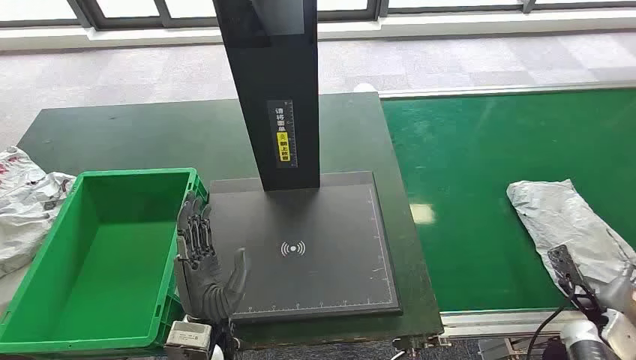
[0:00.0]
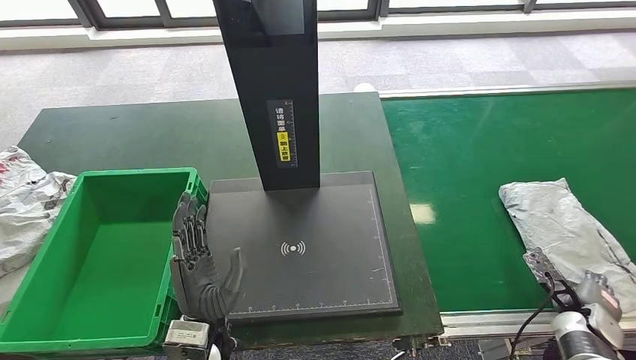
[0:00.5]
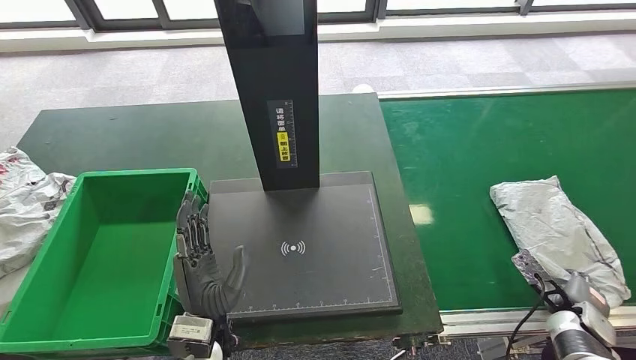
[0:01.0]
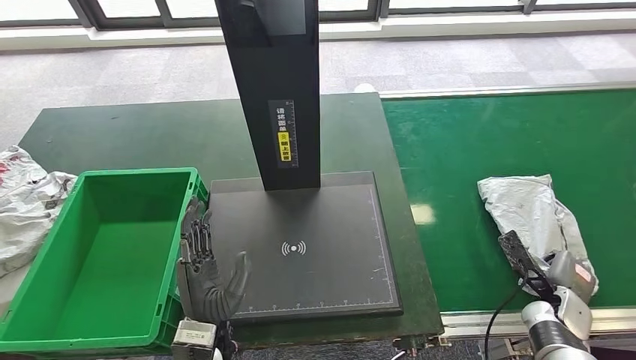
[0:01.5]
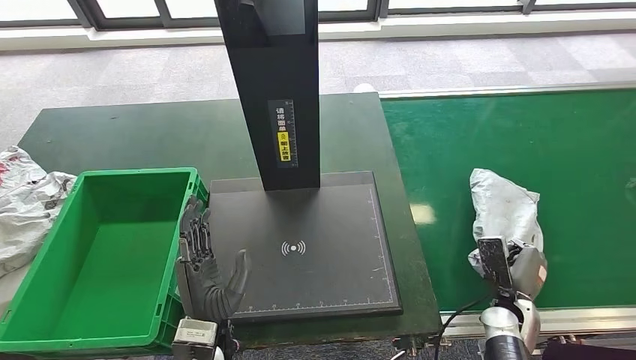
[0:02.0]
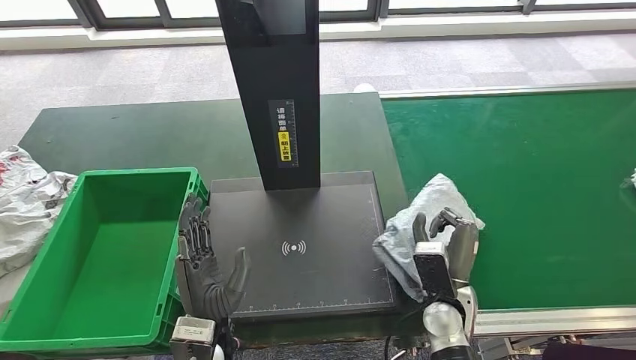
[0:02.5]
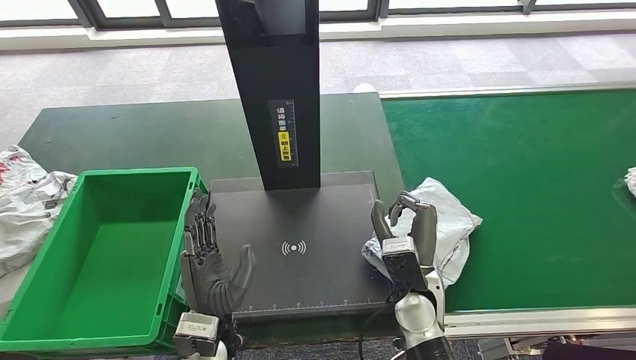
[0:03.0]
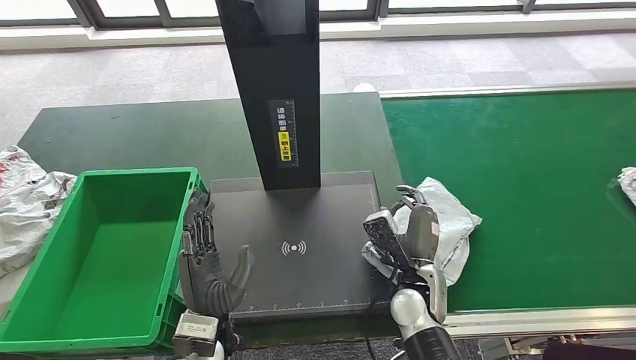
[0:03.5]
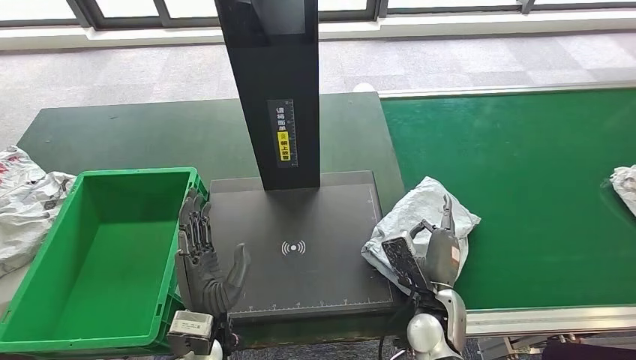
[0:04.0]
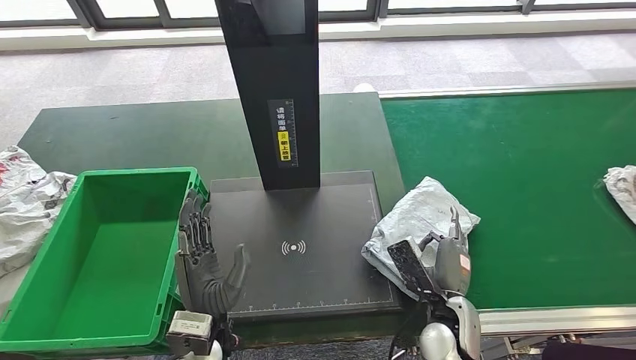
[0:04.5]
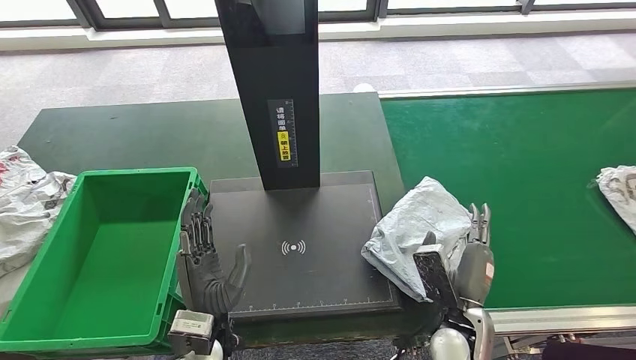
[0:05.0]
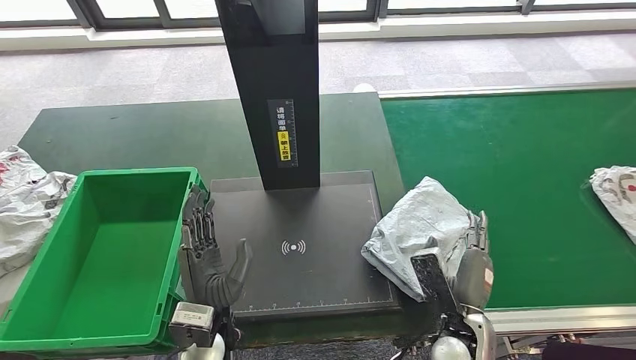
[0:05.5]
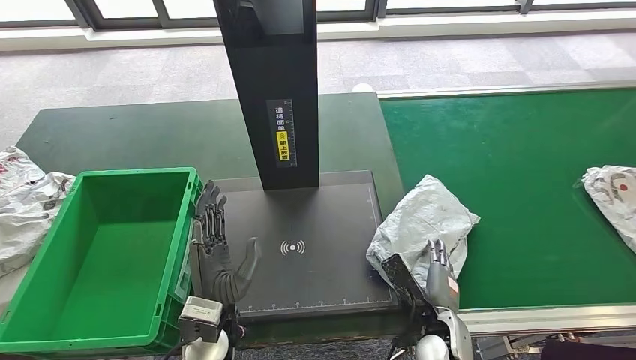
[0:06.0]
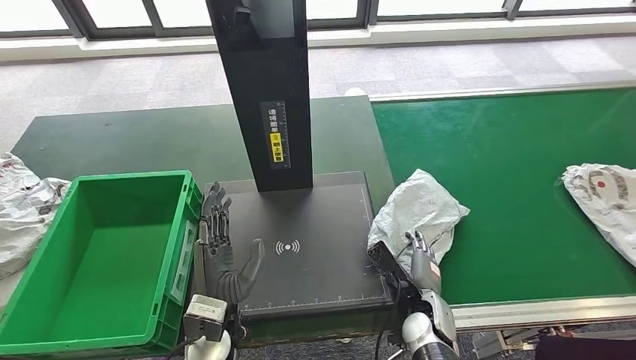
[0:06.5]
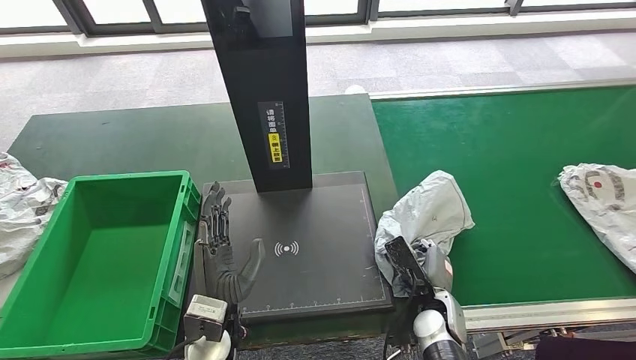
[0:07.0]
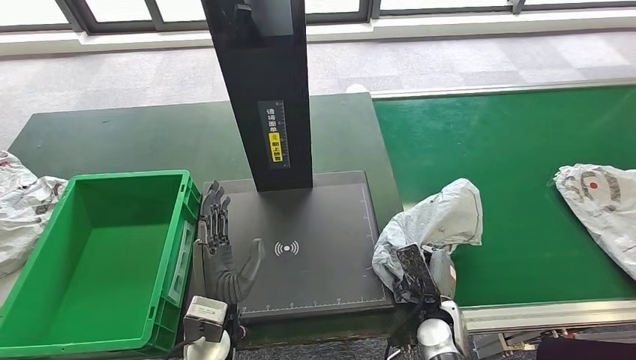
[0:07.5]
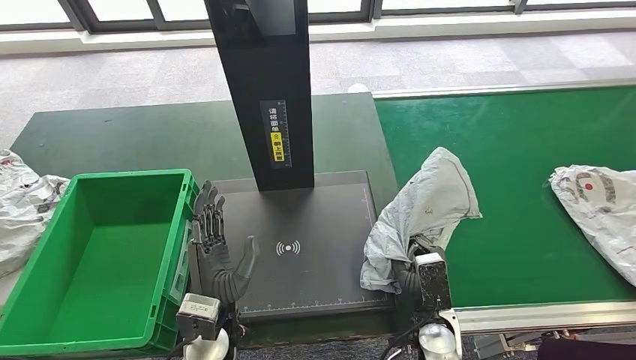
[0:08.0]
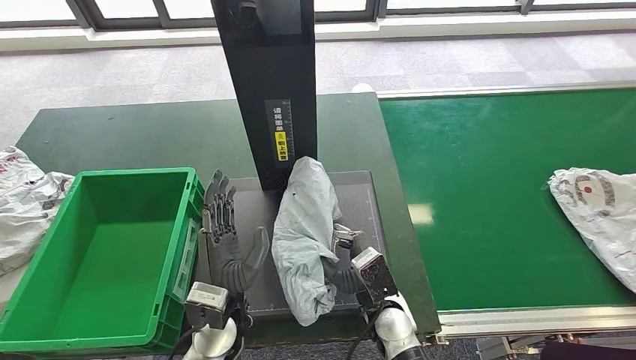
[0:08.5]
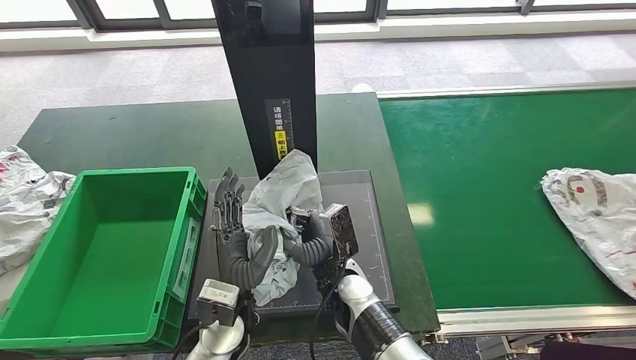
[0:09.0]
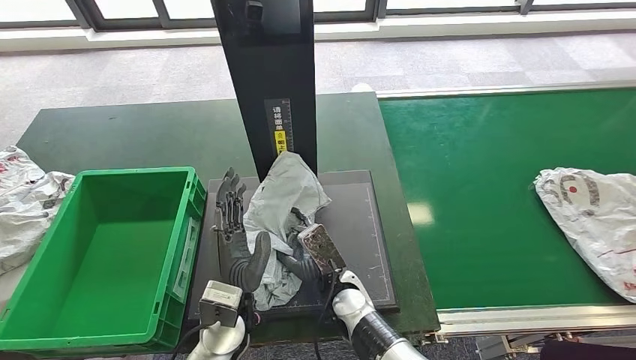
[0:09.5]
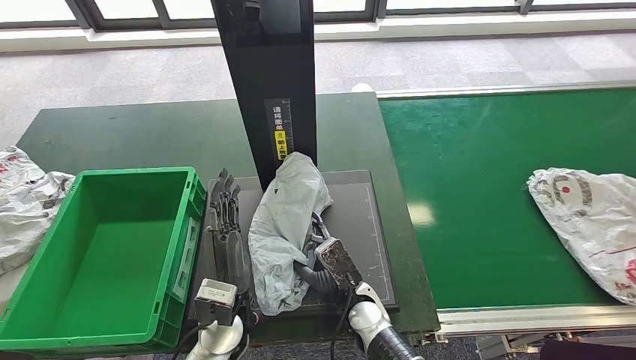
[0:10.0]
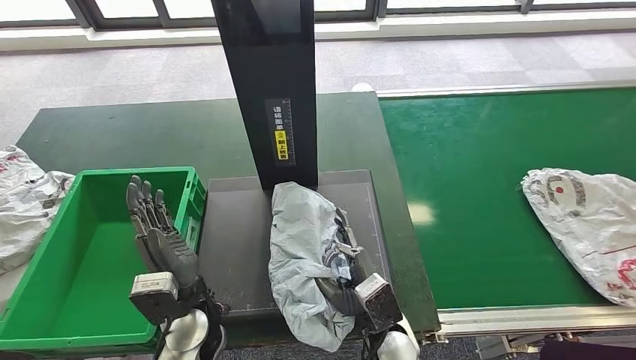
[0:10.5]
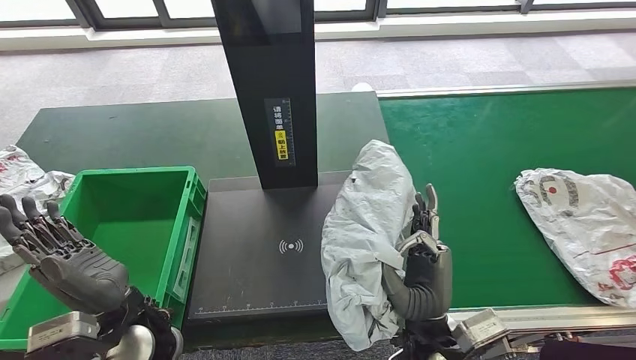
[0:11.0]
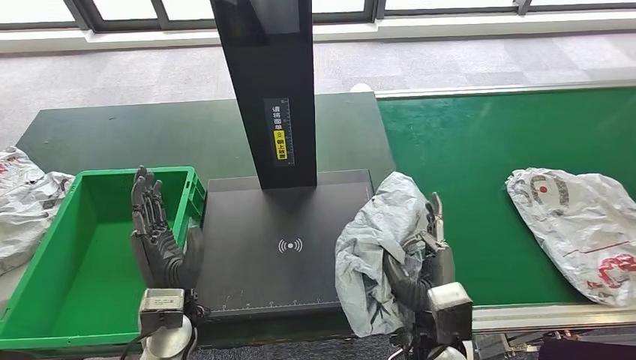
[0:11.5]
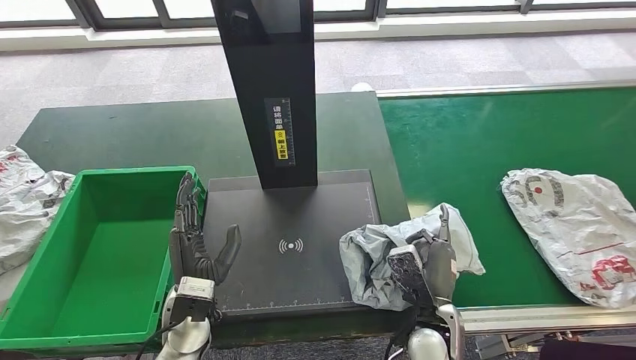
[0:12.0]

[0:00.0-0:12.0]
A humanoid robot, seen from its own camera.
Step, 0:00.0 to 0:02.5: Take the parcel off the conveyor belt.
0:02.0 to 0:04.0: The right hand heads to the left, covering roughly 15 cm.
0:04.0 to 0:06.0: The right hand ends up about 5 cm from where it was.

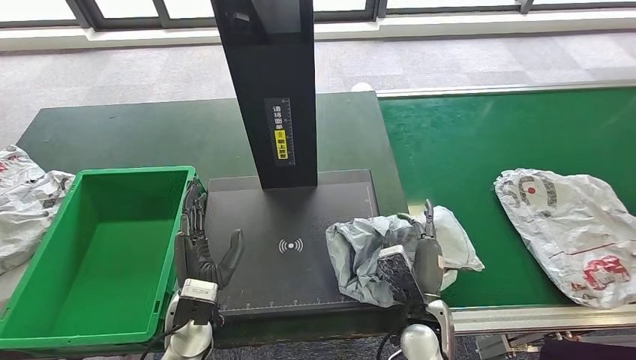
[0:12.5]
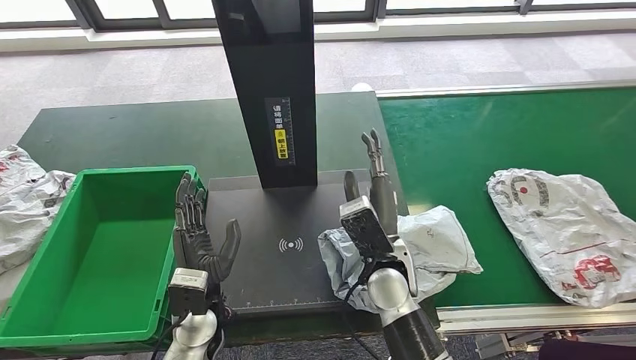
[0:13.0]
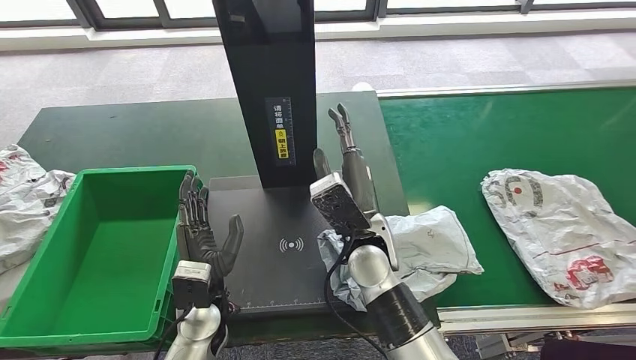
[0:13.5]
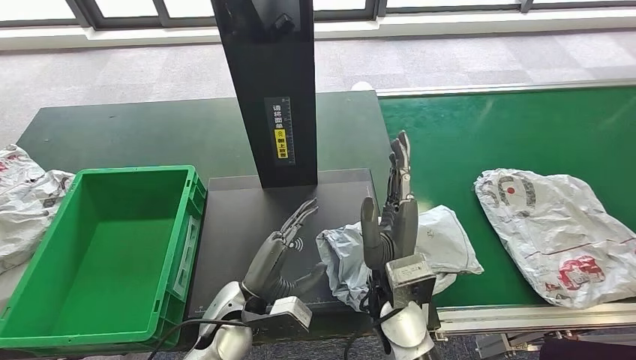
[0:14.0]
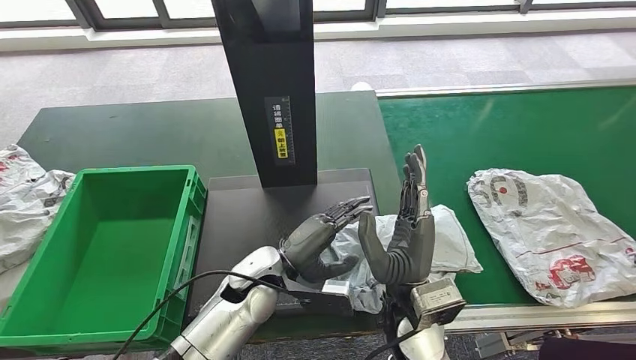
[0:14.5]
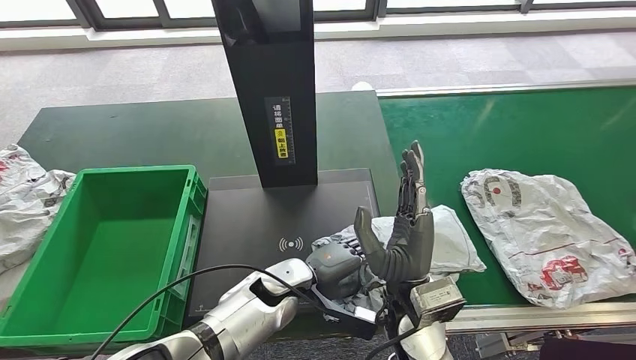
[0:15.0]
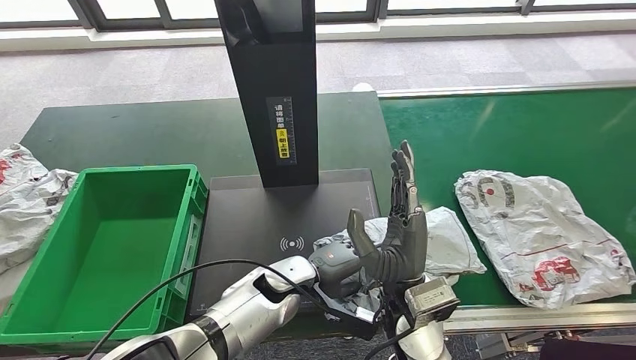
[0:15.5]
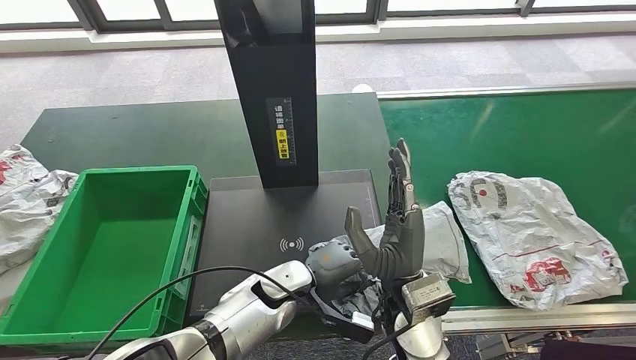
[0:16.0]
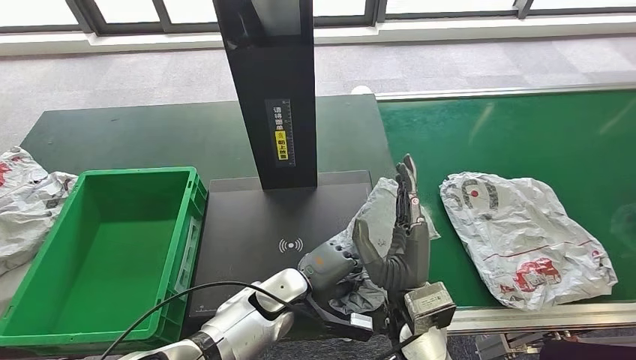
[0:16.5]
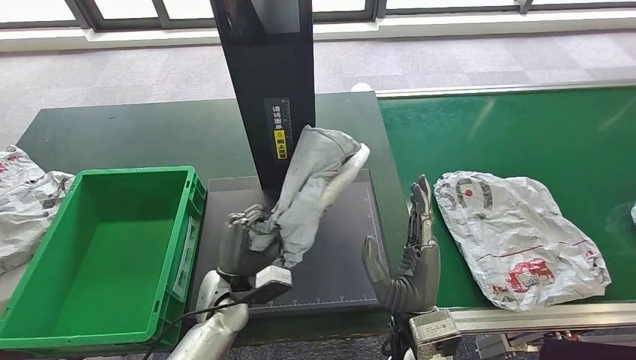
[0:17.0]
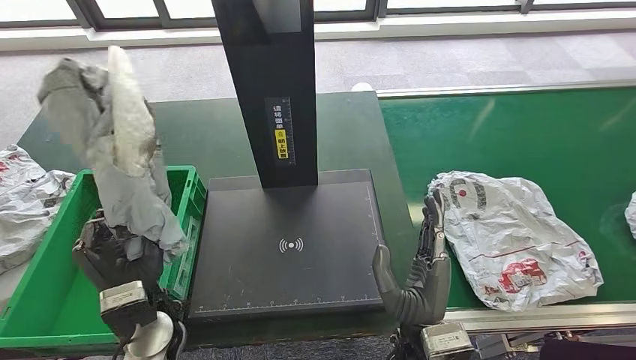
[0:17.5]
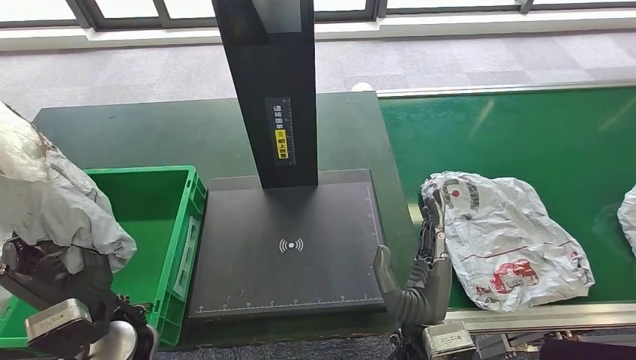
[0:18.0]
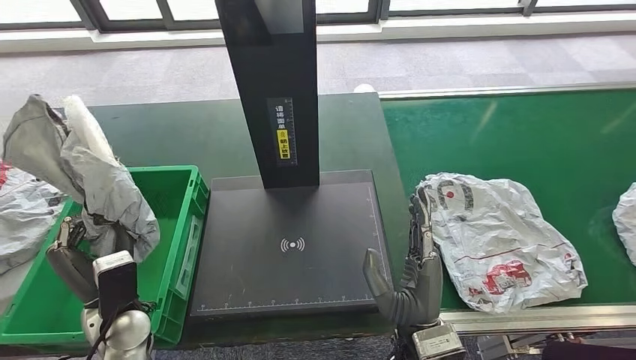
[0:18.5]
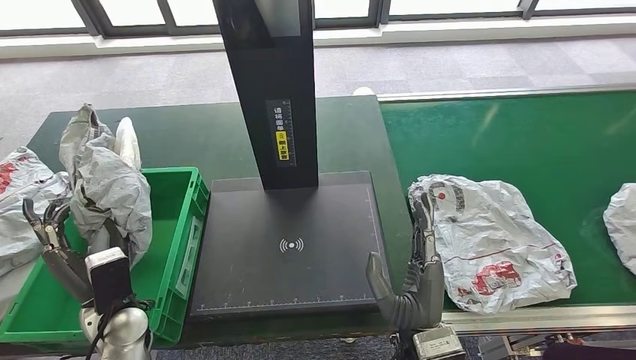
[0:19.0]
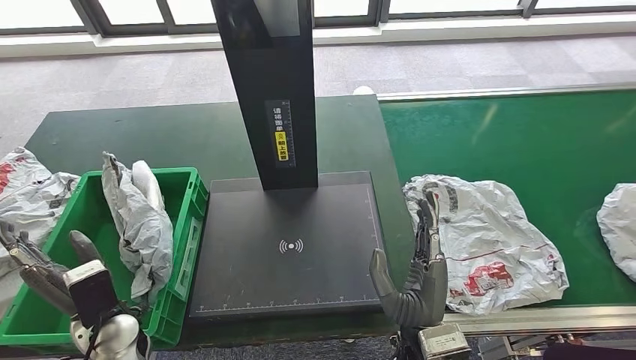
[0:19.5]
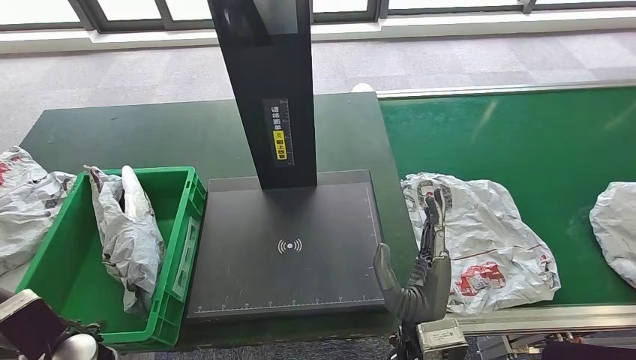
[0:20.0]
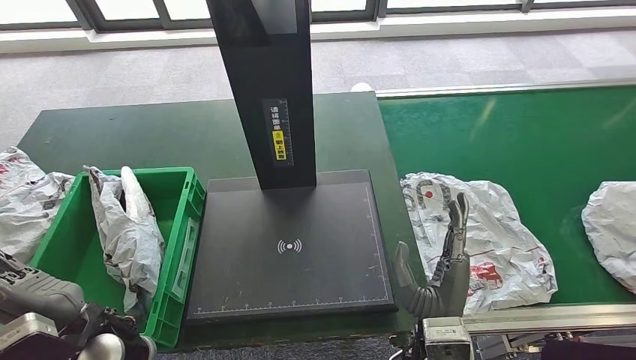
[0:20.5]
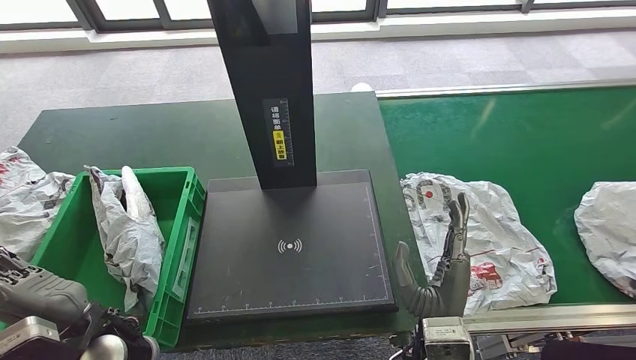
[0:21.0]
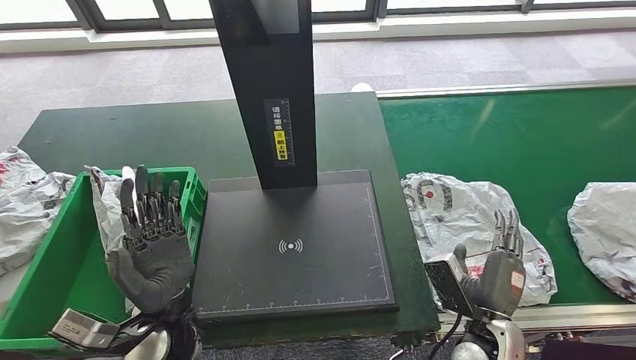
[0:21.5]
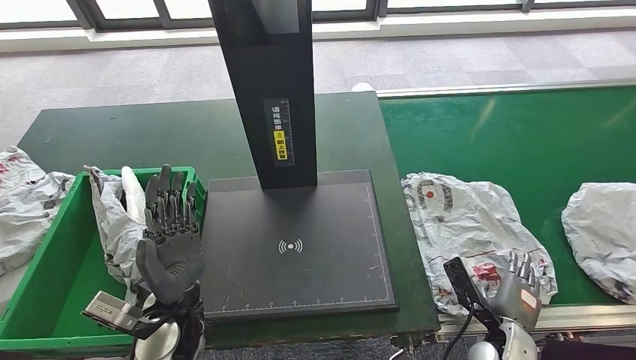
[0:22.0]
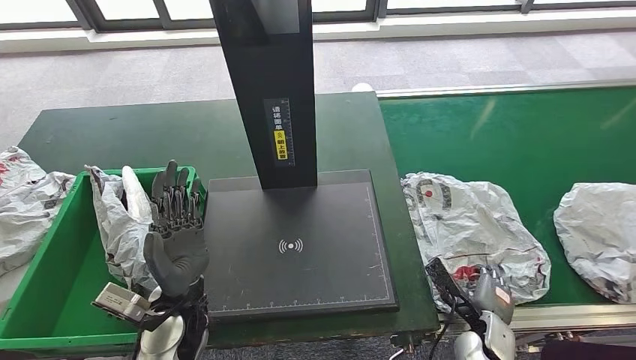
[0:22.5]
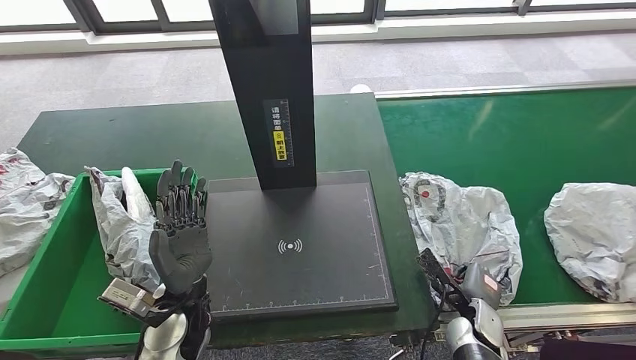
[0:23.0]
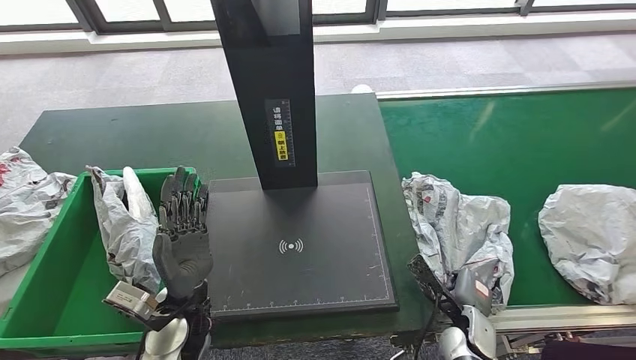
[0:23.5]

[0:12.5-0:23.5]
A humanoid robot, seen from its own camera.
Step, 0:14.5 to 0:18.0: Pick up the parcel from the inbound machine.
Step, 0:18.5 to 0:20.5: Put the parcel inside the courier box.
0:12.5 to 0:14.5: The right hand goes approximately 10 cm upward and to the left; the left hand goes about 10 cm to the right and forward.
0:20.0 to 0:21.5: The hands both shift to the right by about 15 cm.
